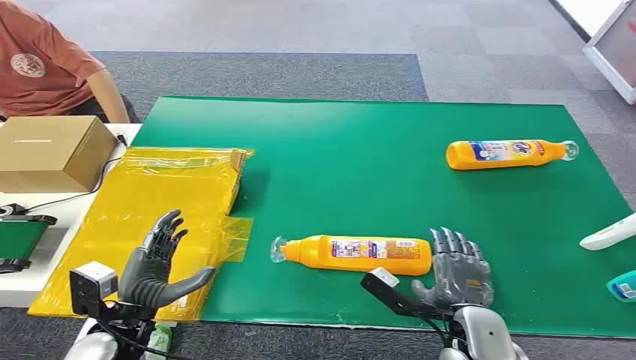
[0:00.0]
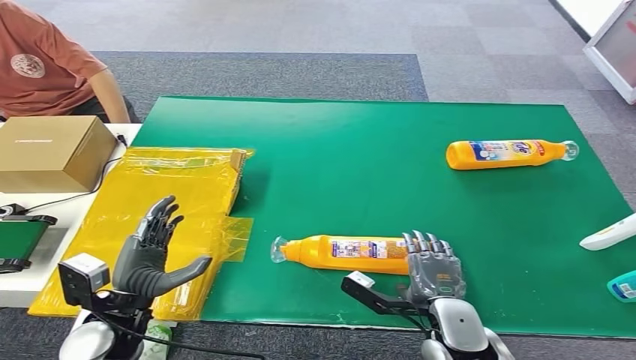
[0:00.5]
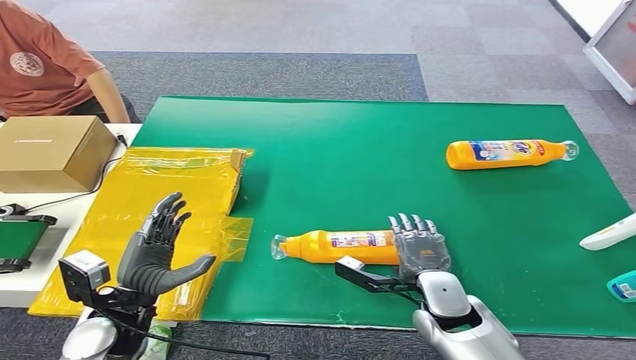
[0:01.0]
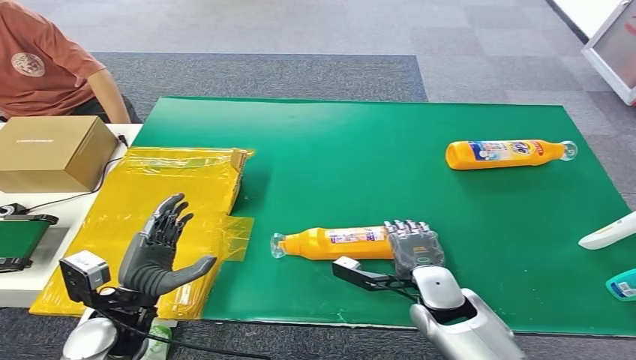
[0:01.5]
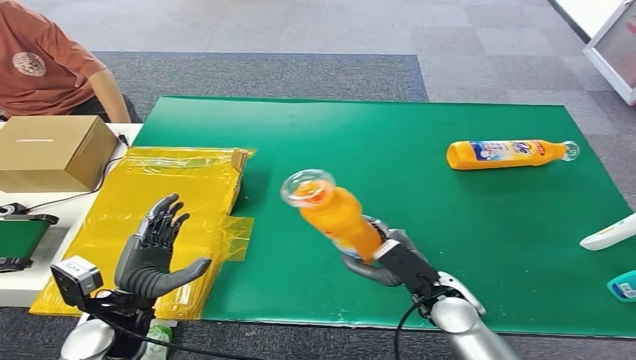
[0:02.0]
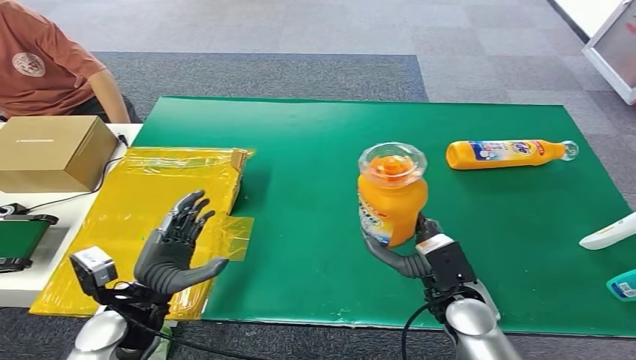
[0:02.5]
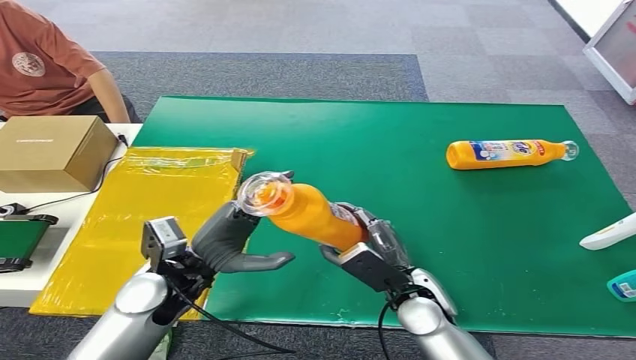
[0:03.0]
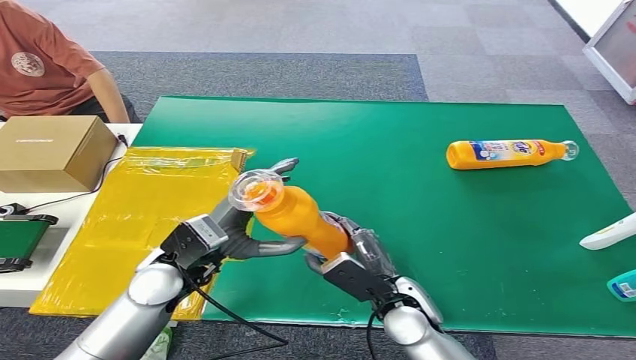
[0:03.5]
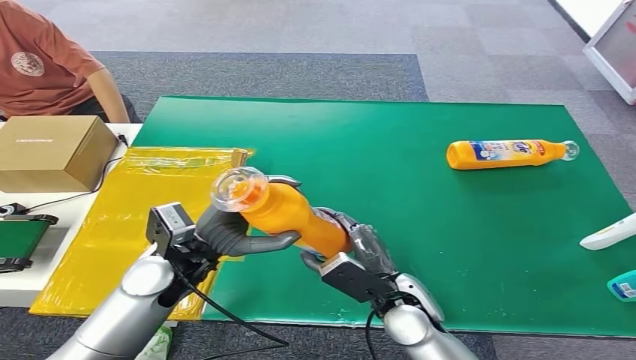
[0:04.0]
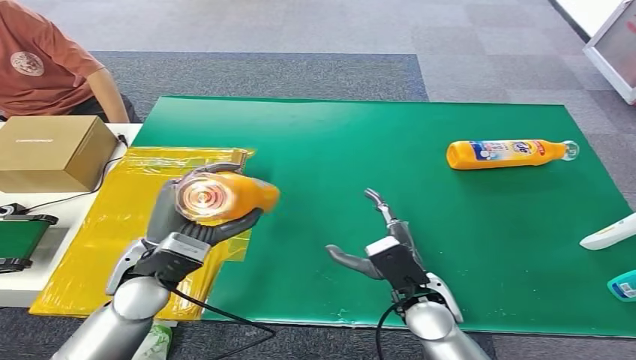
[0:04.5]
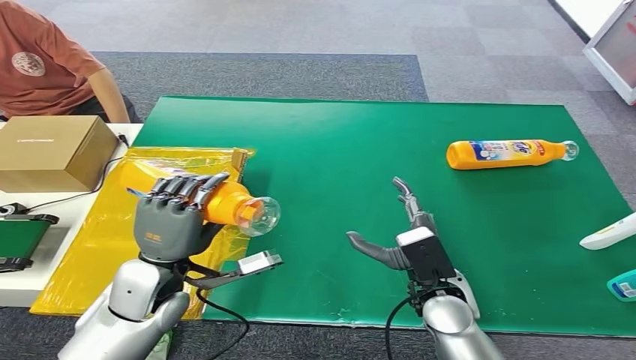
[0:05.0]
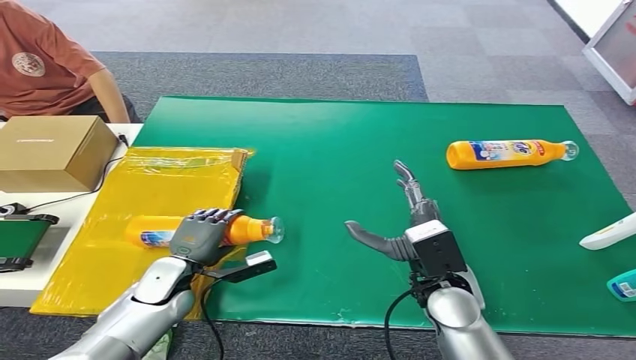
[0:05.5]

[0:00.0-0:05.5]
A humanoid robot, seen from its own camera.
Step, 0:00.0 to 0:02.5: Pick up the bottle from the table.
Step, 0:03.0 to 0:05.5: Turn the bottle to the front side.
0:02.0 to 0:03.5: The right hand goes roughly 5 cm to the left; the left hand moves to the right, forward and upward, roughly 10 cm.
0:03.5 to 0:05.5: The right hand moves upward, roughly 5 cm. The left hand heads downward and to the left, covering some 15 cm.
